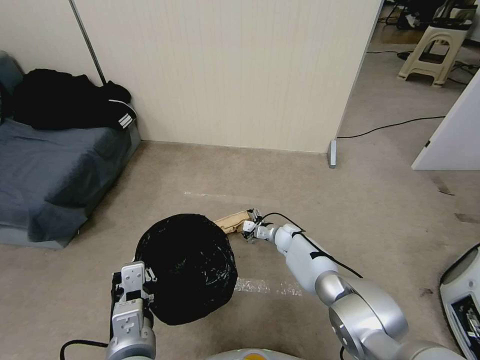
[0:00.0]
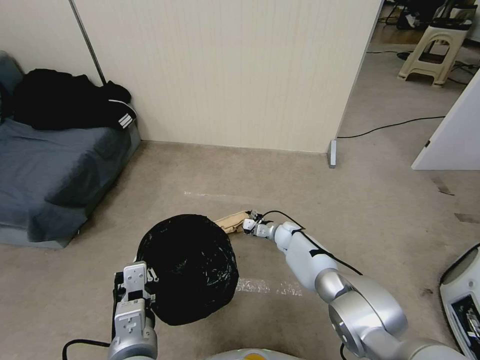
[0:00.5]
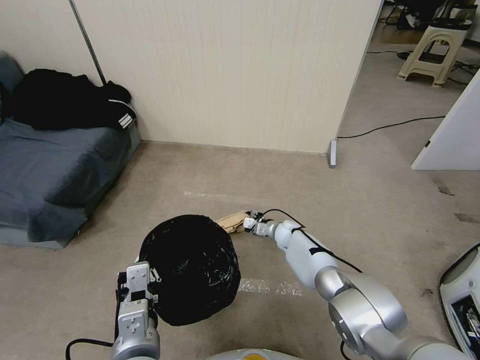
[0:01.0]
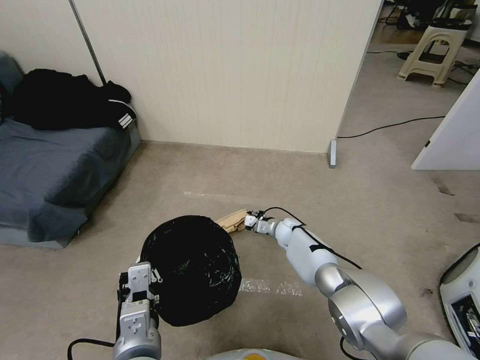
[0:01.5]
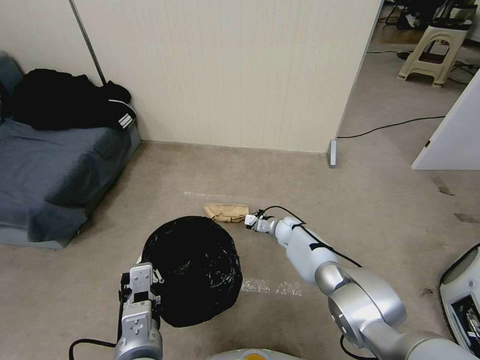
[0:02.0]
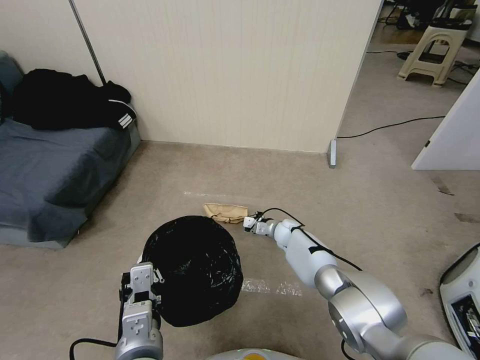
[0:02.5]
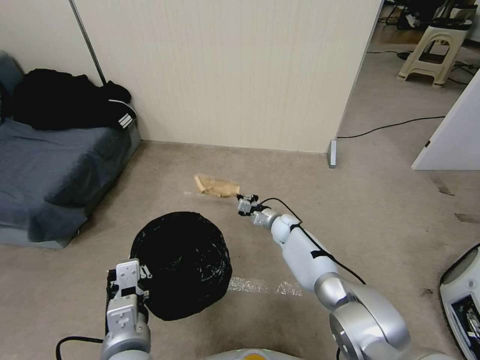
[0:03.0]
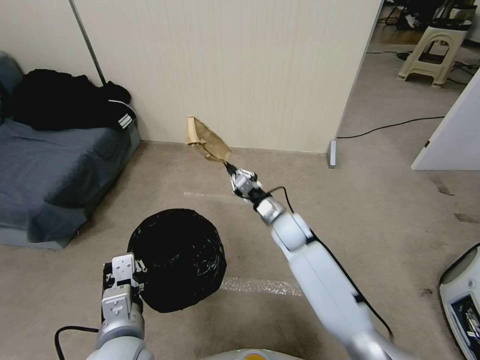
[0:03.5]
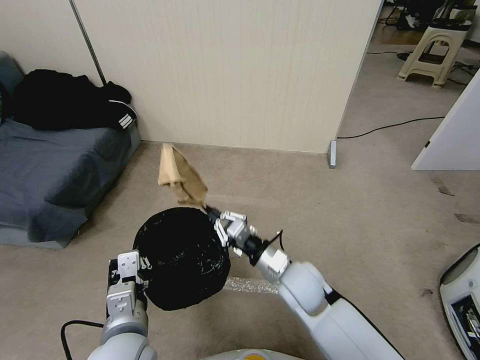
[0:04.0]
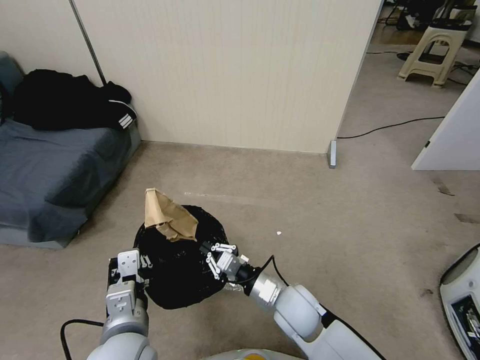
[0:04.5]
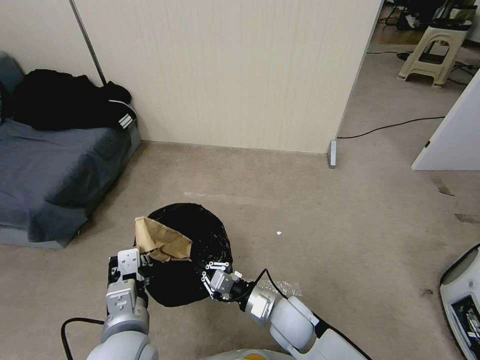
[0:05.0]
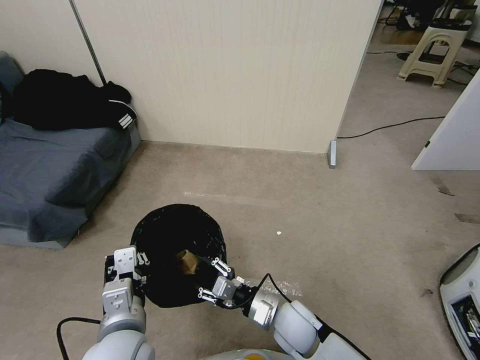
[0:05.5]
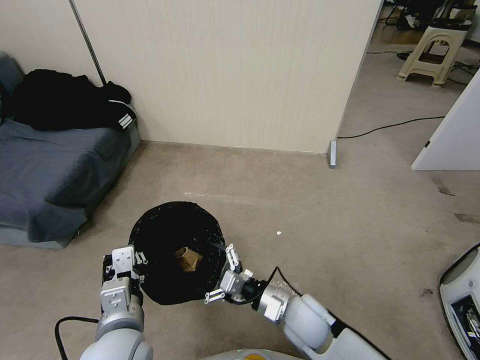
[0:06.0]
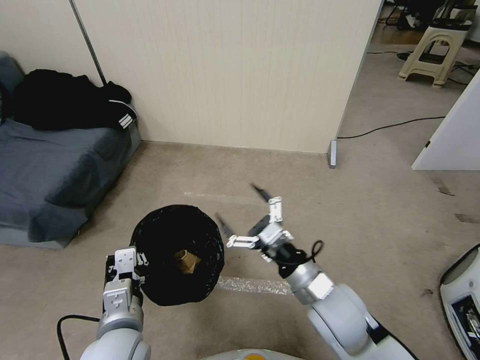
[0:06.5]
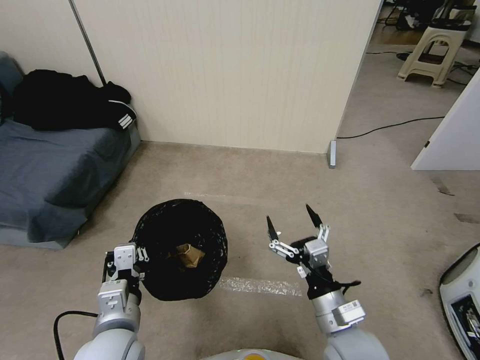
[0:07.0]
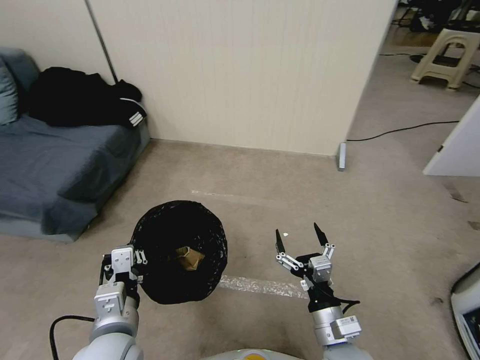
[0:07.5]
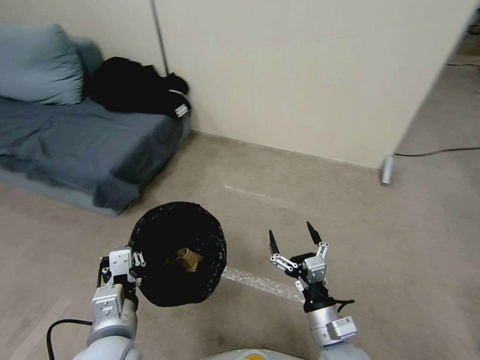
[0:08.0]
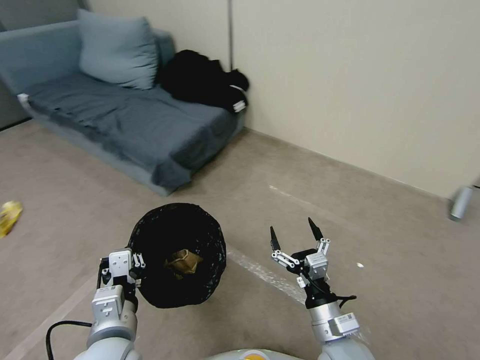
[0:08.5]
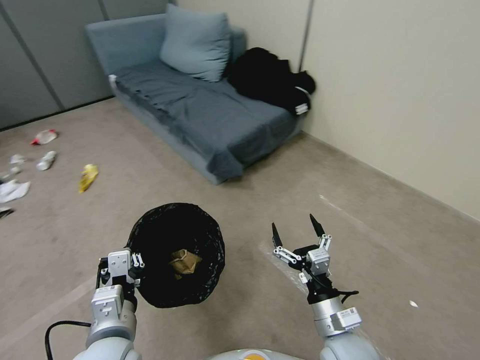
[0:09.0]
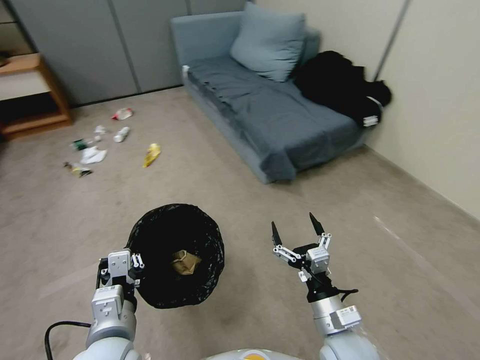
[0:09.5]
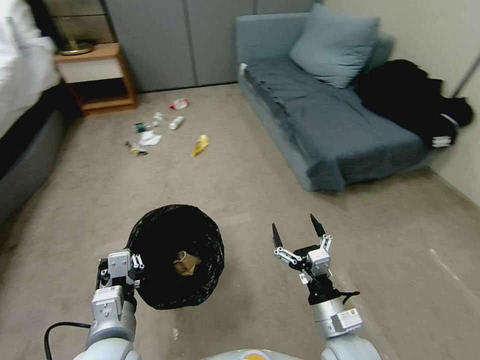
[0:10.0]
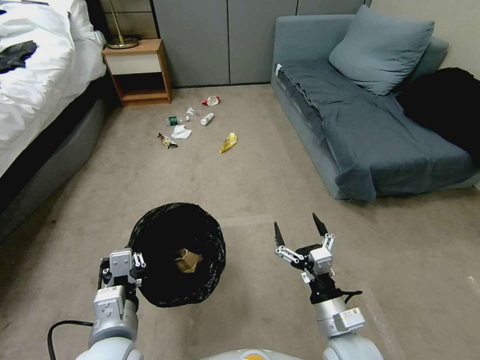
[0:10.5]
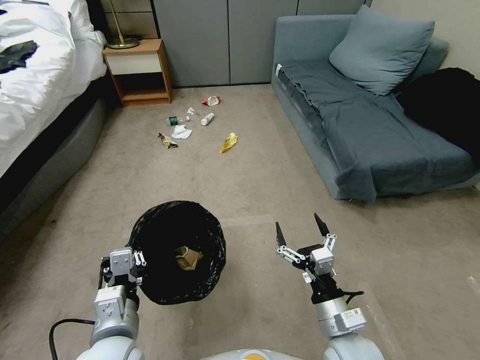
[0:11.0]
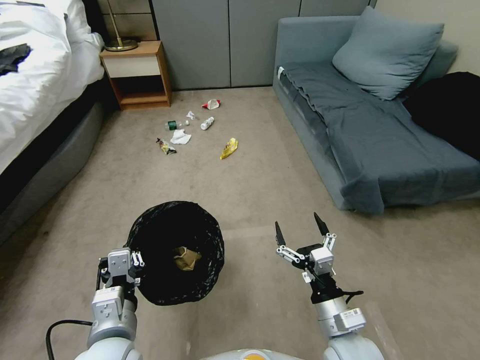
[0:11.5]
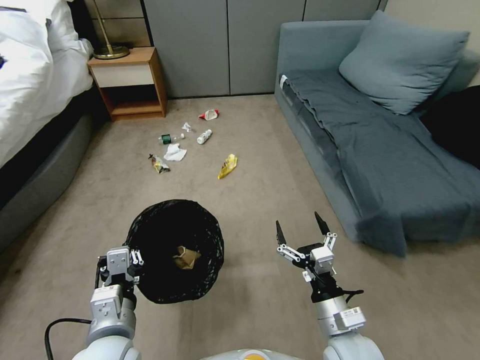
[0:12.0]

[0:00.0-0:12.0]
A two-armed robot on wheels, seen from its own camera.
Task of the whole recording: Pick up the trash bin, then pick up the garbage from the floor and place it into the trash bin.
0.0 to 2.0 s: The right gripper closes.
2.0 to 4.0 s: The right gripper goes about 30 cm backward and upward.
4.0 to 6.0 s: The right gripper moves backward and downward, about 10 cm, and opens.
6.0 to 8.0 s: The right gripper moves backward, some 10 cm, and moves approximately 10 cm upward and comes back.

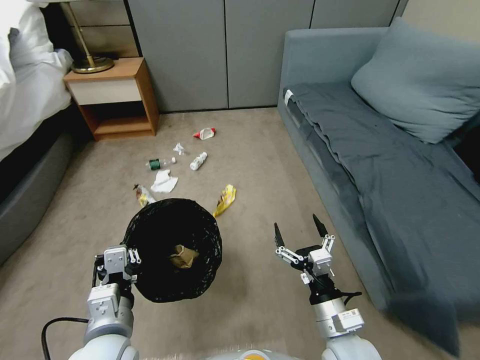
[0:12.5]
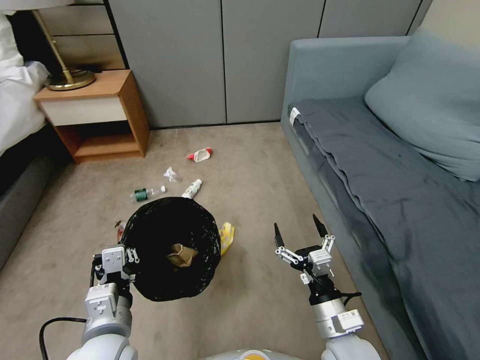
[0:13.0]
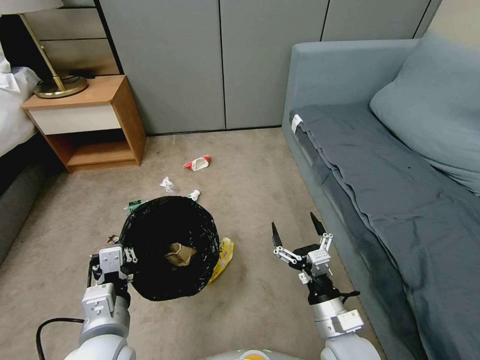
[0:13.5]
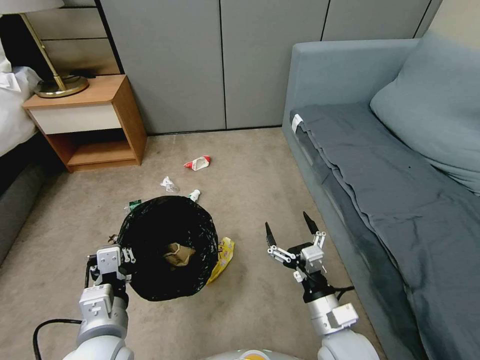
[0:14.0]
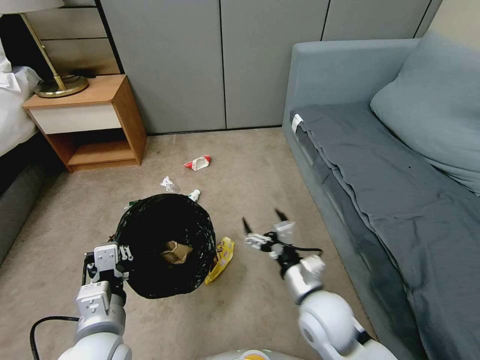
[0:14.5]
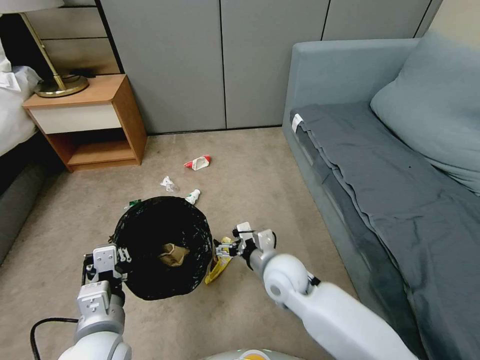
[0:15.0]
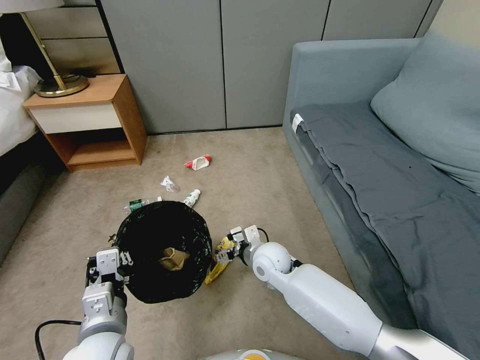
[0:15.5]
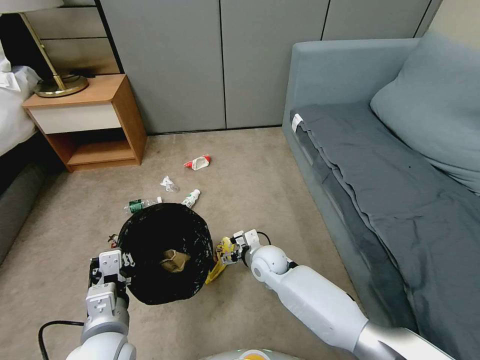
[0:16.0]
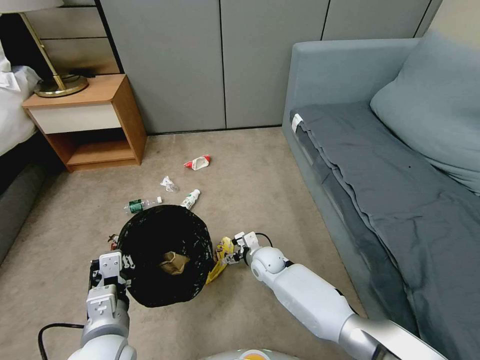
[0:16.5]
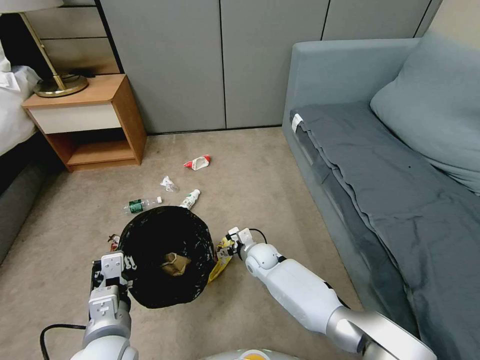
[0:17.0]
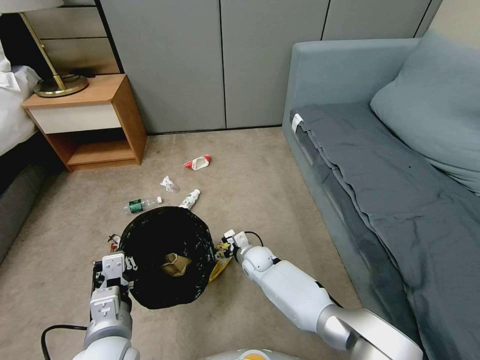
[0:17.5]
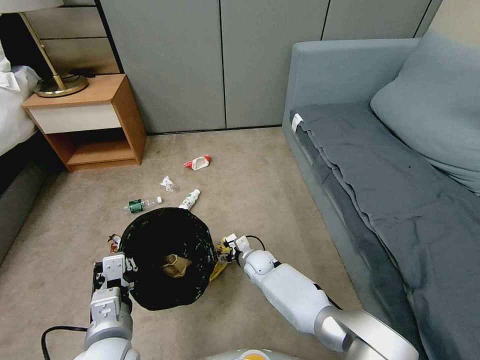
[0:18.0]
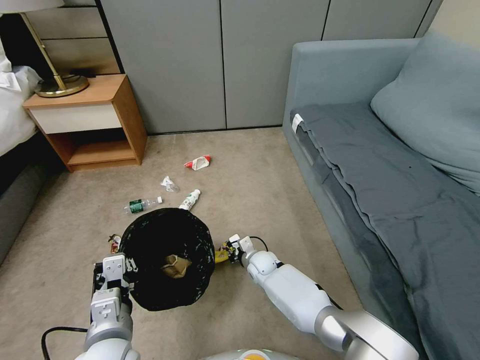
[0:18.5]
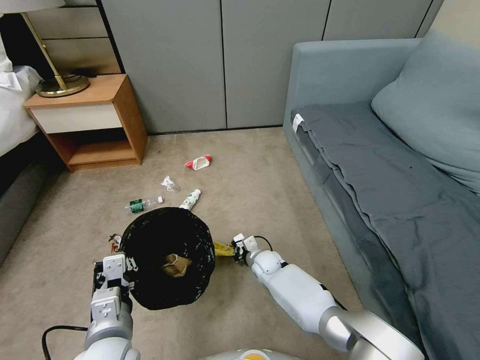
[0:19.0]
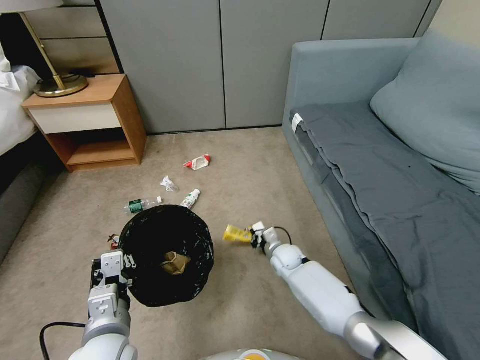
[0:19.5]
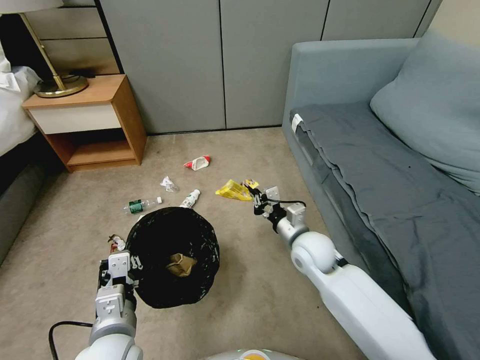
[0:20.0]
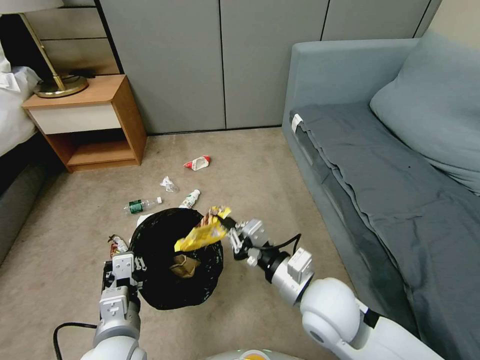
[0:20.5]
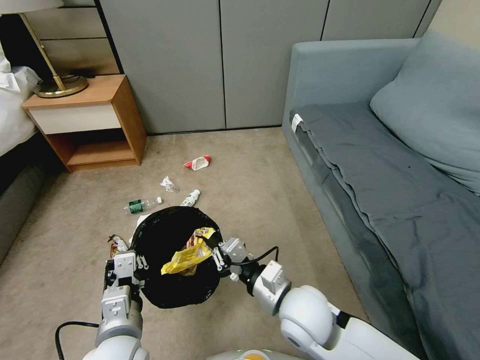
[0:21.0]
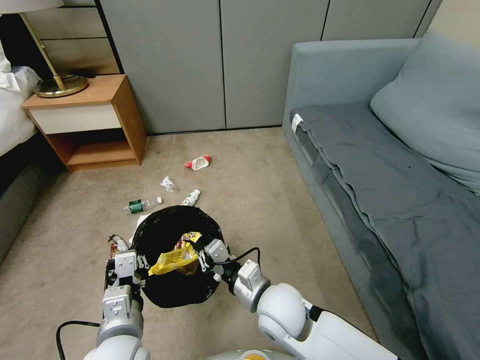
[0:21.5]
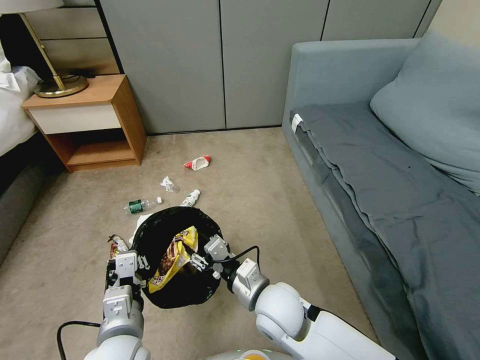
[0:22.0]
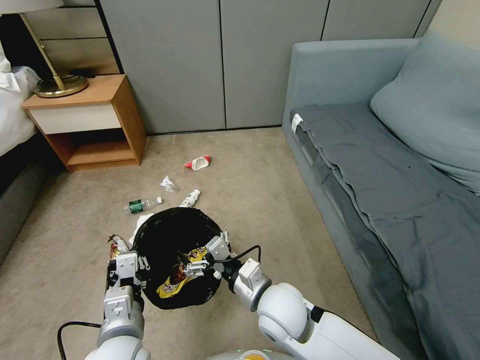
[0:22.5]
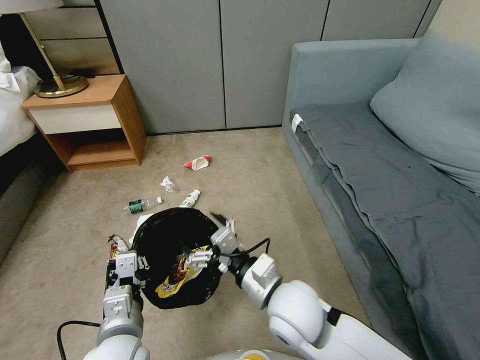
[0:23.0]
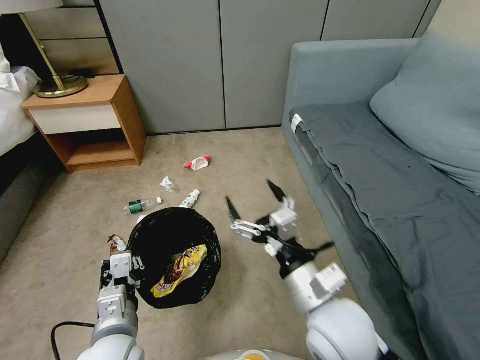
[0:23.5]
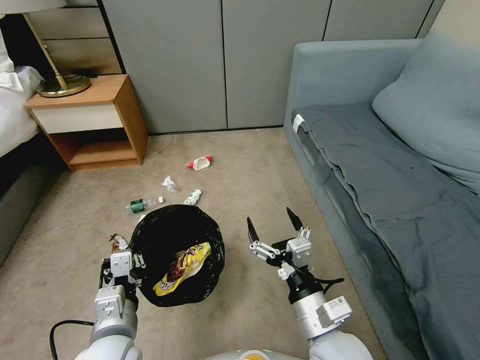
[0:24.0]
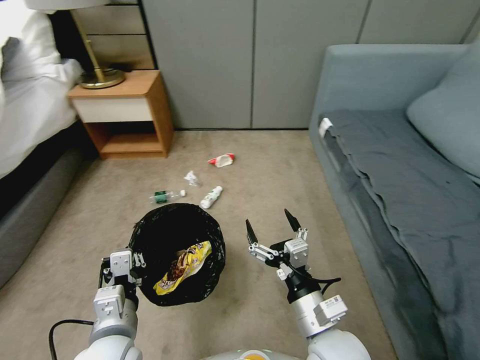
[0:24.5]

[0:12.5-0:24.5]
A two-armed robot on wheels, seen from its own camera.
Task of the whole recording: Pick up the trash bin, then pick up the garbage from the floor and place it into the trash bin.
12.5 to 14.5 s: The right gripper travels forward by about 5 cm.
14.5 to 16.5 s: The right gripper is displaced forward, downward and to the left by about 25 cm.
16.5 to 18.5 s: The right gripper is displaced downward by roughly 5 cm, and closes.
18.5 to 20.5 s: The right gripper travels upward and backward by roughly 35 cm.
20.5 to 22.5 s: The right gripper shifts roughly 10 cm to the left and downward, and opens its fingers.
22.5 to 24.5 s: The right gripper travels to the right and backward by about 10 cm, and moves roughly 10 cm upward and comes back.

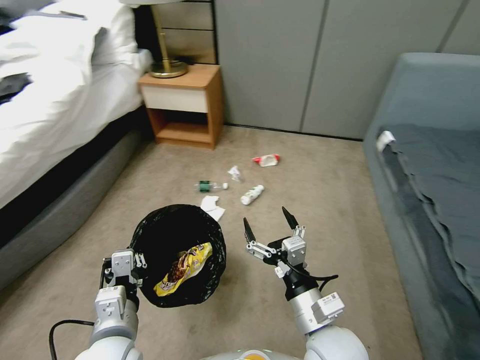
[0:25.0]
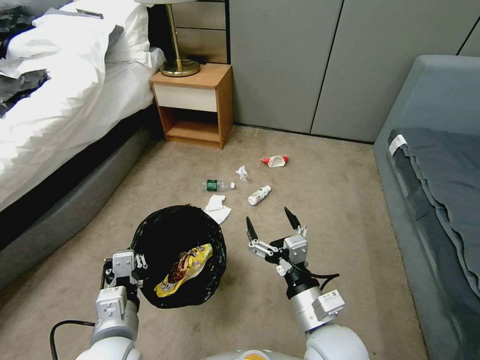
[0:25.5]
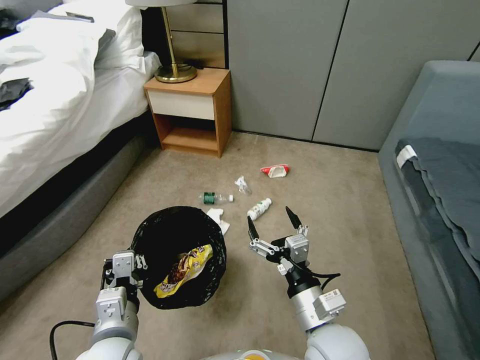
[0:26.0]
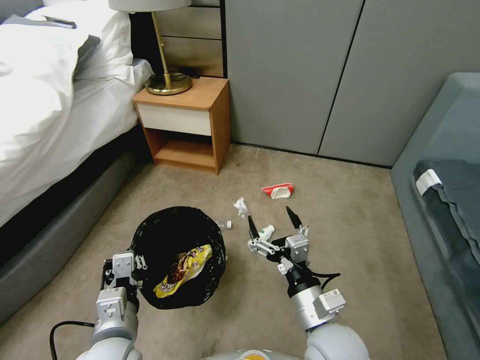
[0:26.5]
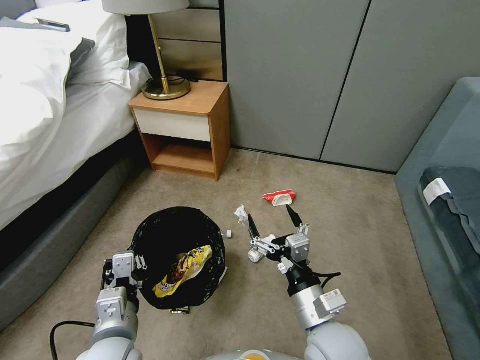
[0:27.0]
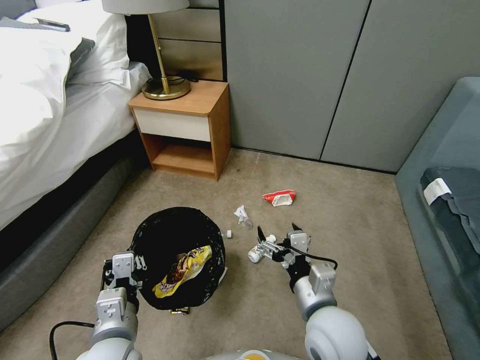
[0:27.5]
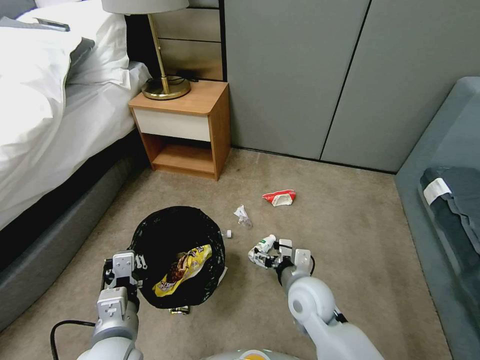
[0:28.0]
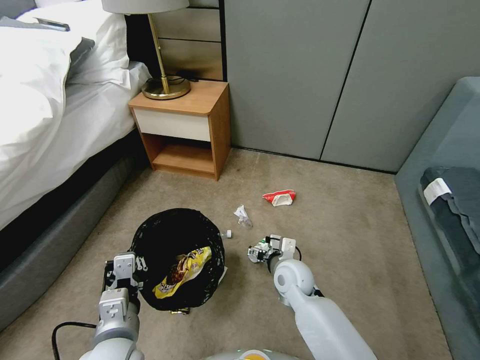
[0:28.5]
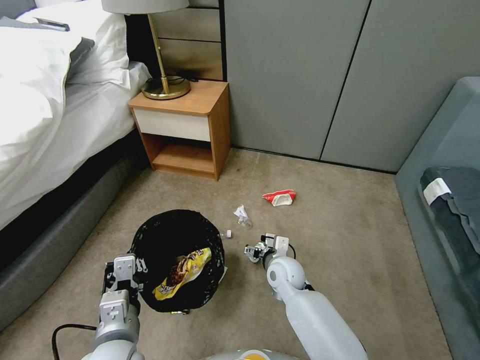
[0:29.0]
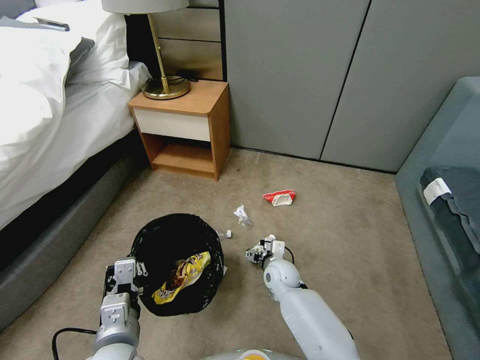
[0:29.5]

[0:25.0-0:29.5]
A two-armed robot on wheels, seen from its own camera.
Task of the whole recording: Pick up the trash bin, then pick up the garbage from the floor and place it into the trash bin.
27.0 to 29.5 s: The right gripper is displaced forward and downward by some 25 cm.
